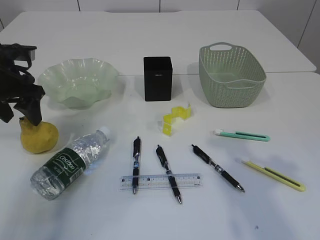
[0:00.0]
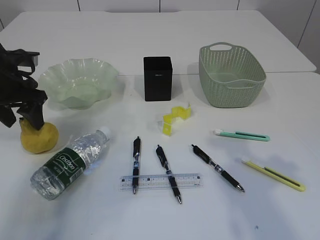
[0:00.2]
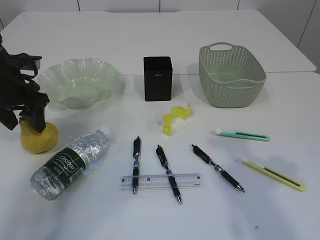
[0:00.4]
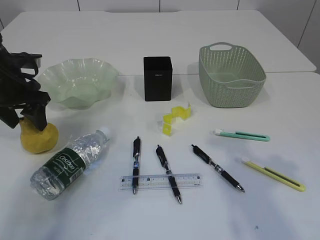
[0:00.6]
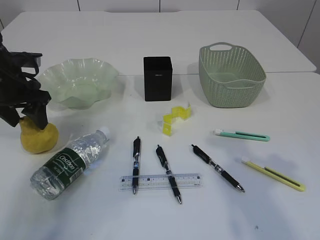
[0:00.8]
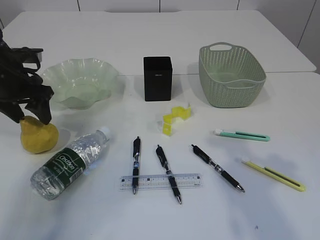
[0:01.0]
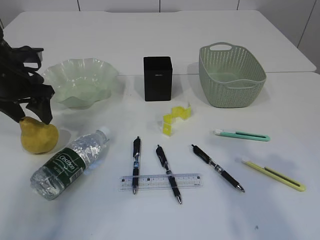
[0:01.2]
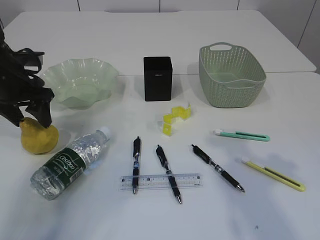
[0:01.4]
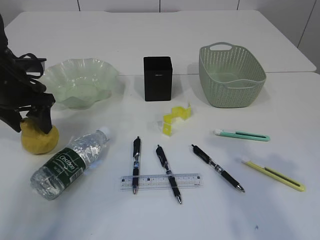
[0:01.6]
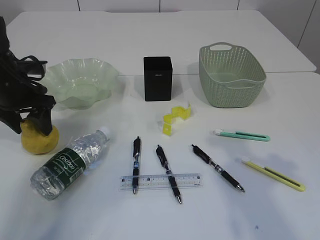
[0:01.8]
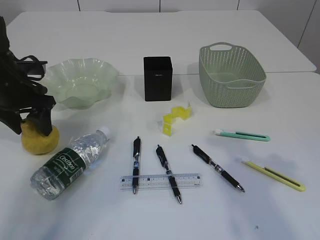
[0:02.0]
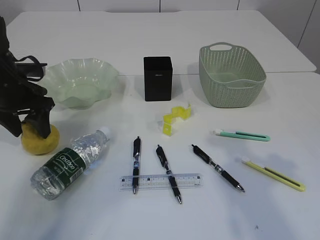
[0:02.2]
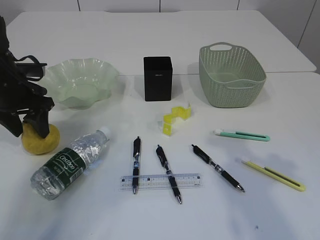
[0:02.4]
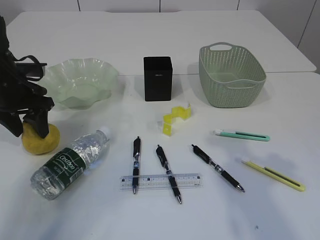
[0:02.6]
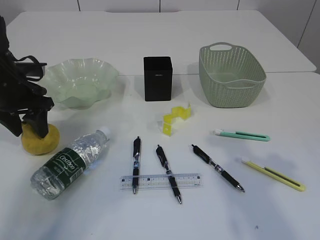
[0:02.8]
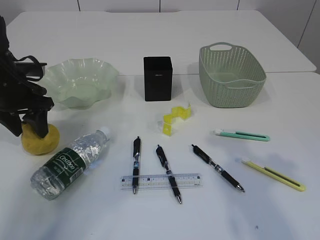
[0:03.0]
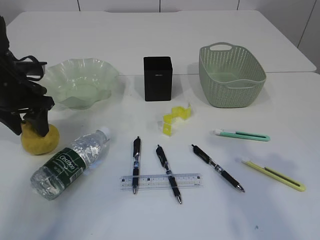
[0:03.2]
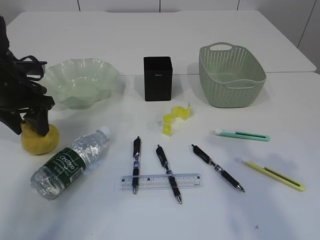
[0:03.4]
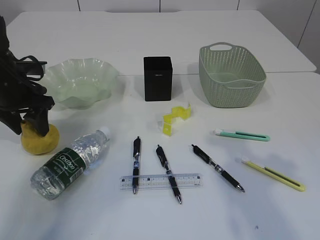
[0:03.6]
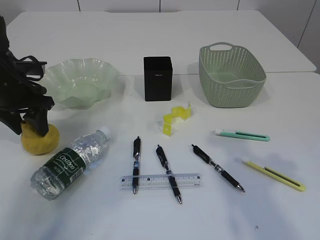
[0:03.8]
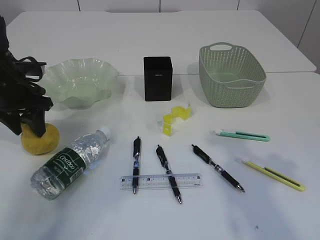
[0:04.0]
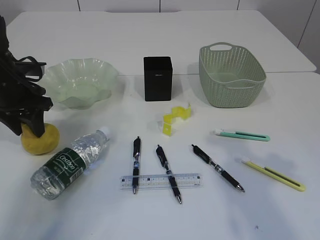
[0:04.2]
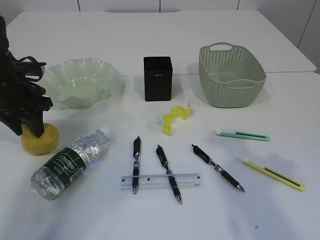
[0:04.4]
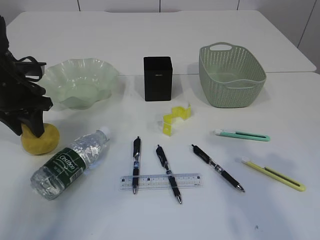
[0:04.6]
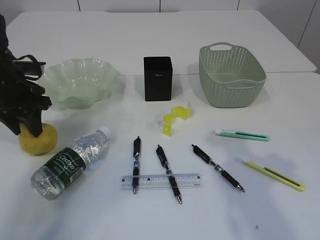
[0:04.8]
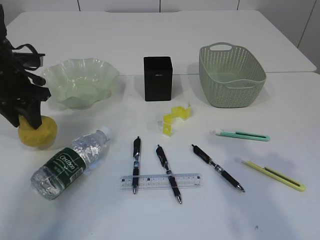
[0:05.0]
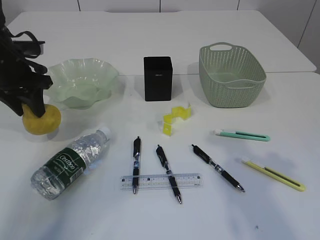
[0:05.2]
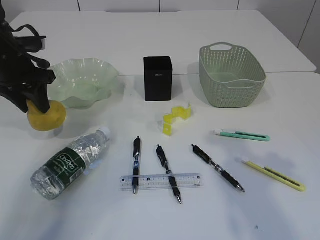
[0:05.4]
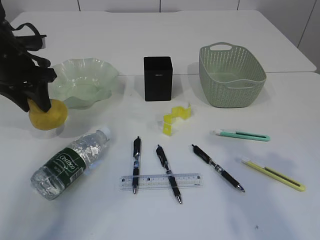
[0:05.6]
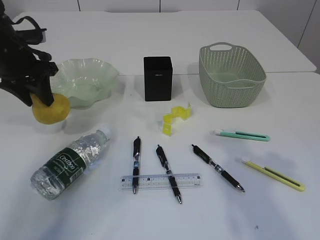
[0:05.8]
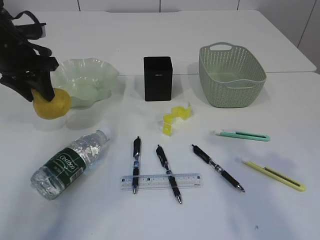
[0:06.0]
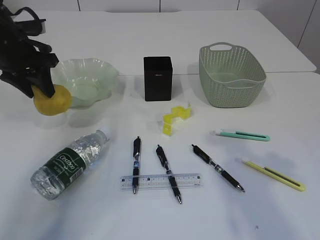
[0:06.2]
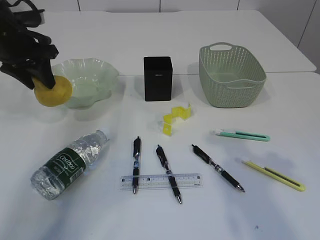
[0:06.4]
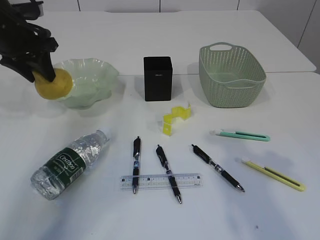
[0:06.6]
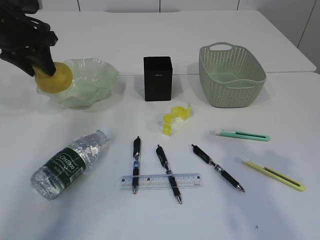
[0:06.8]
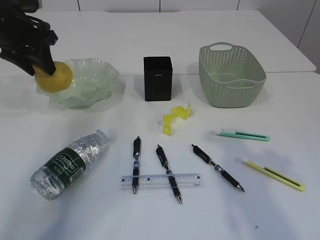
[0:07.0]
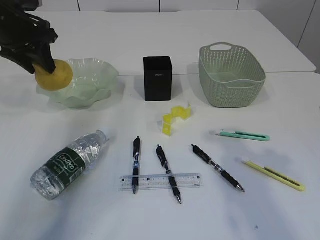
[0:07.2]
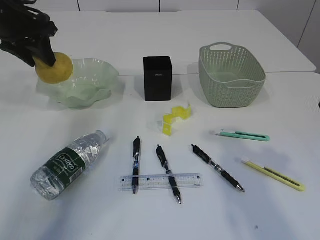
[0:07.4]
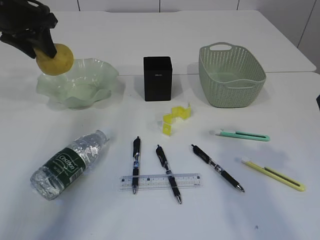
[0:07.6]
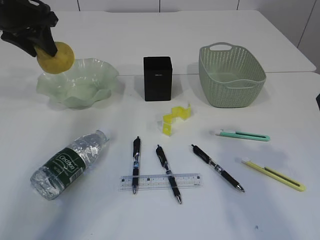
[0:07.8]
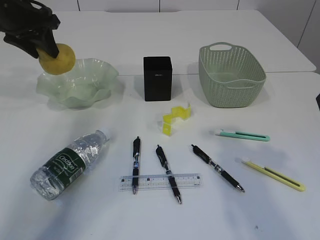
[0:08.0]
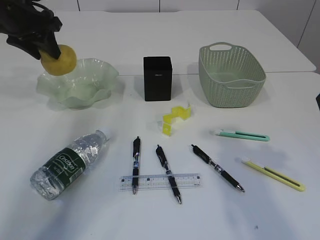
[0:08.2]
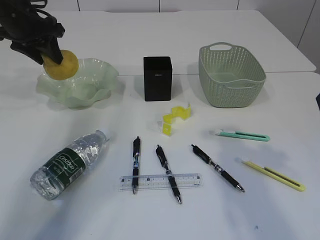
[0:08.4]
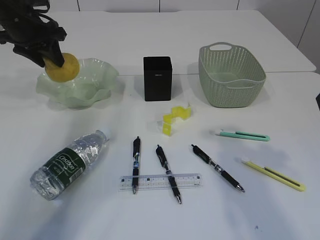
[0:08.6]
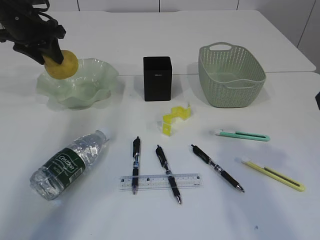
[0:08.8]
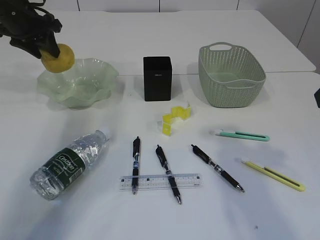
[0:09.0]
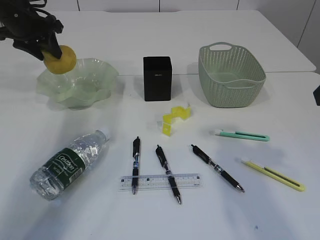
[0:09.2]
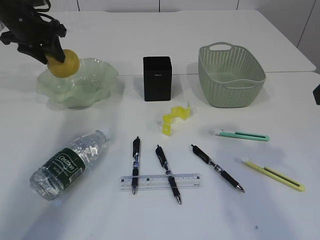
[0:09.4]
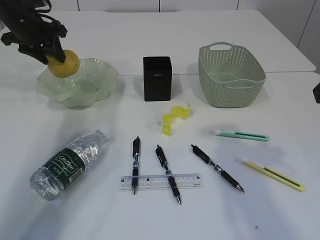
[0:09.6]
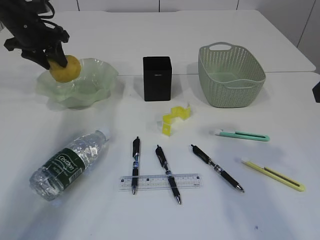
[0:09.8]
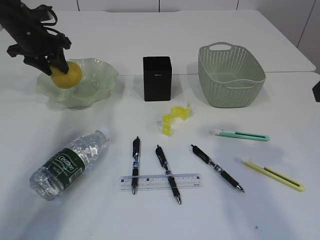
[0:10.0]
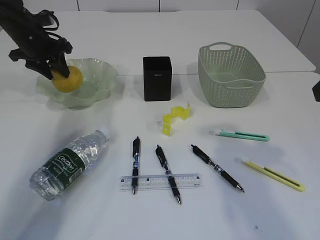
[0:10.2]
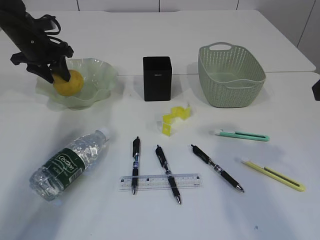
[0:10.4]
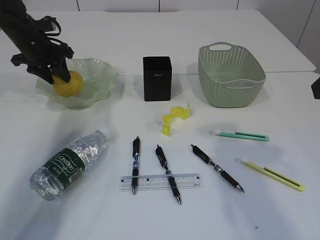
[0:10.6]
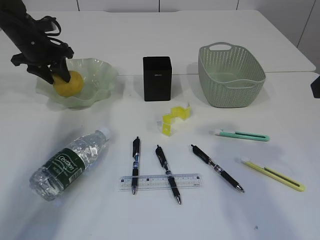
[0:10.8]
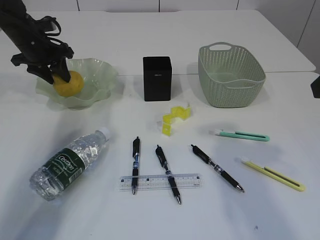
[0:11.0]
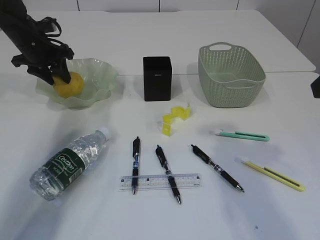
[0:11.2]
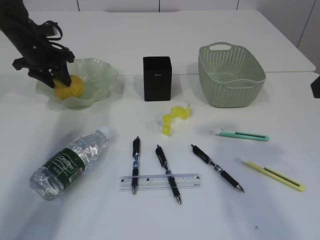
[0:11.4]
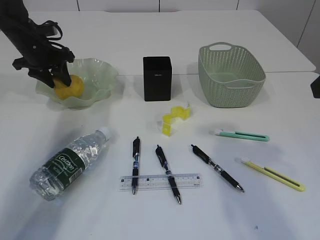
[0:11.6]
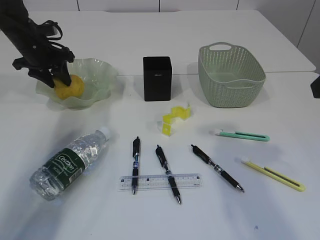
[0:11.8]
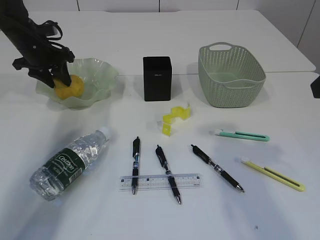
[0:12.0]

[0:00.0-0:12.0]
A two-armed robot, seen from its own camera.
0:00.0 to 0:01.6: There are only small adjustments of the grippers.
0:01.6 to 0:03.0: Both grippers stay about where they are.
0:03.0 to 0:04.4: The left gripper closes.
0:04.4 to 0:06.0: The left gripper moves upward, about 5 cm.
0:06.0 to 0:07.6: The left gripper travels upward by about 5 cm.
0:07.6 to 0:09.0: The left gripper moves about 5 cm.
0:09.0 to 0:10.4: The left gripper goes roughly 5 cm downward.
0:10.4 to 0:12.0: Both grippers stay about where they are.

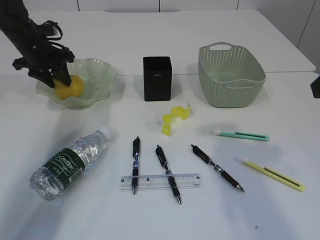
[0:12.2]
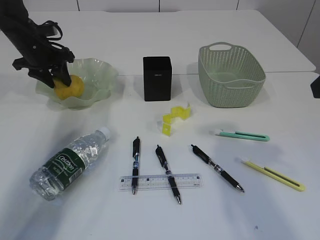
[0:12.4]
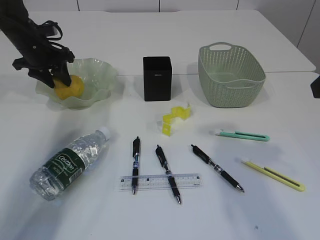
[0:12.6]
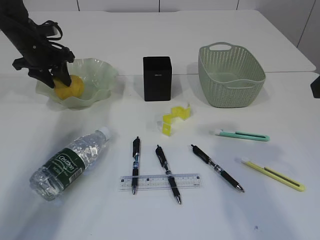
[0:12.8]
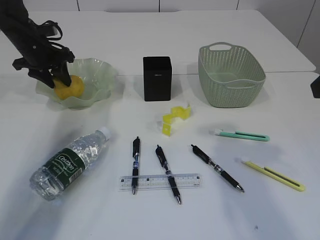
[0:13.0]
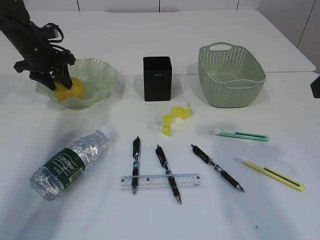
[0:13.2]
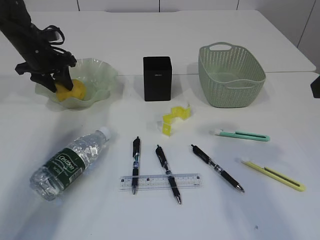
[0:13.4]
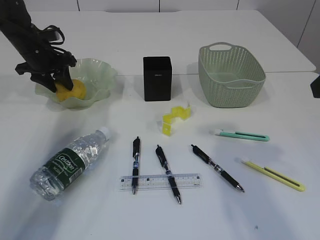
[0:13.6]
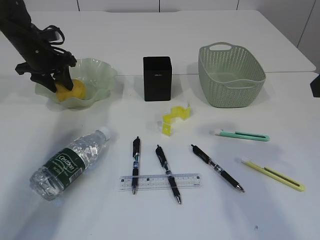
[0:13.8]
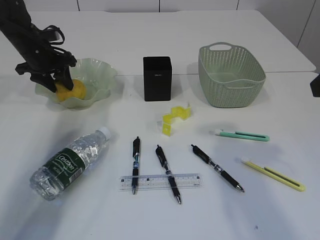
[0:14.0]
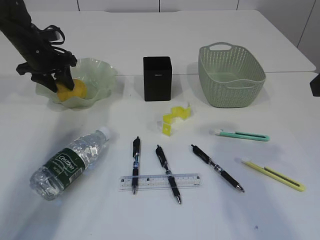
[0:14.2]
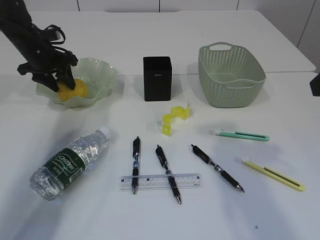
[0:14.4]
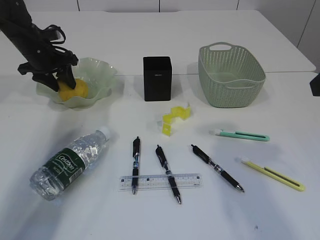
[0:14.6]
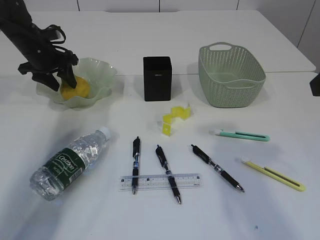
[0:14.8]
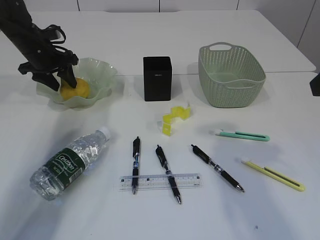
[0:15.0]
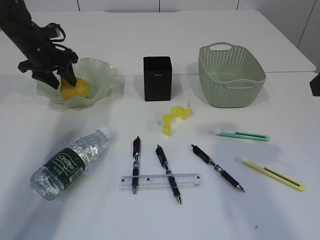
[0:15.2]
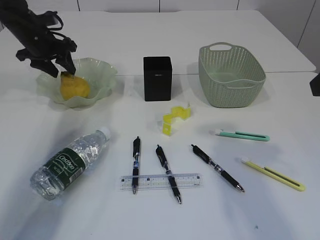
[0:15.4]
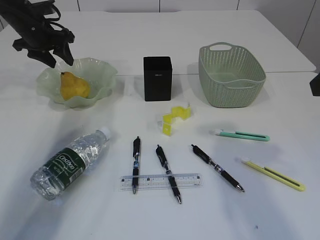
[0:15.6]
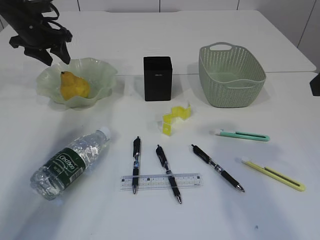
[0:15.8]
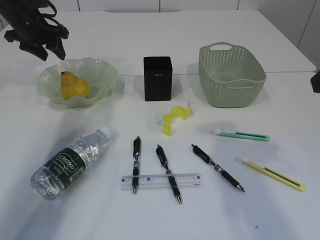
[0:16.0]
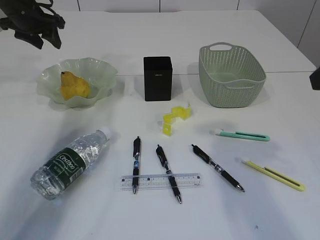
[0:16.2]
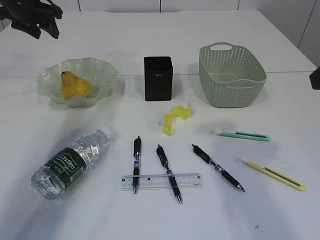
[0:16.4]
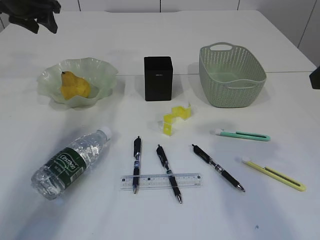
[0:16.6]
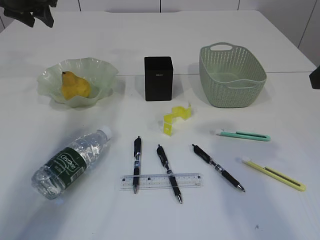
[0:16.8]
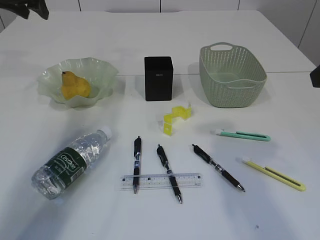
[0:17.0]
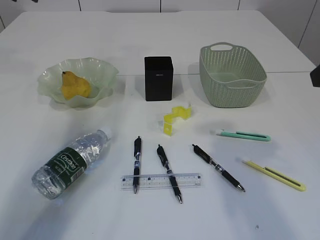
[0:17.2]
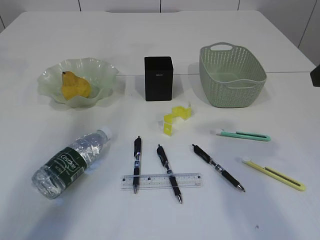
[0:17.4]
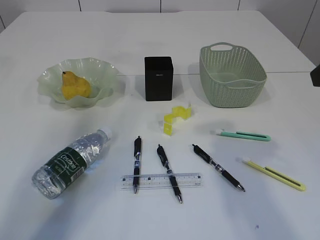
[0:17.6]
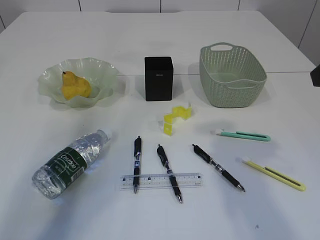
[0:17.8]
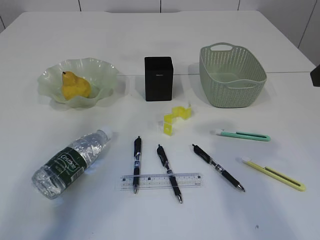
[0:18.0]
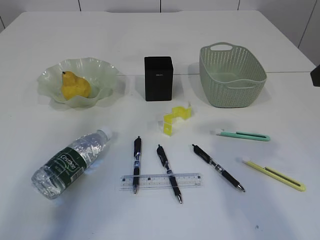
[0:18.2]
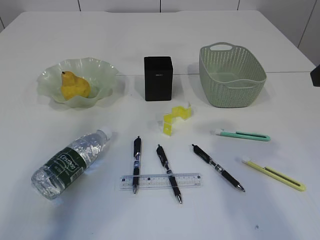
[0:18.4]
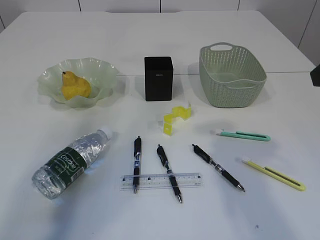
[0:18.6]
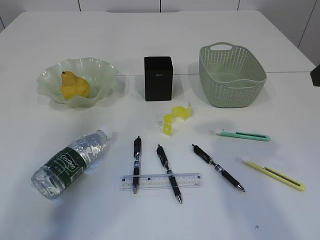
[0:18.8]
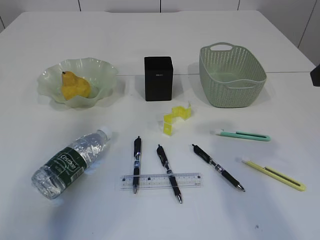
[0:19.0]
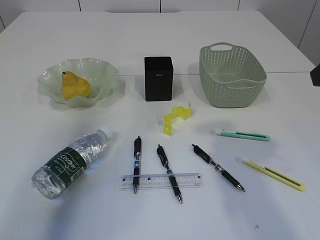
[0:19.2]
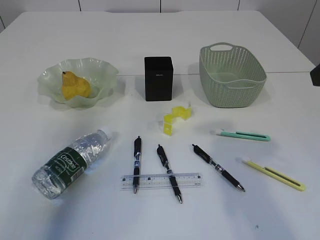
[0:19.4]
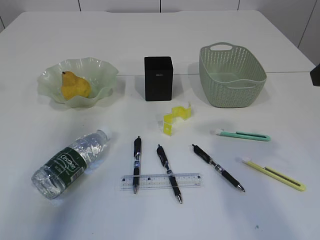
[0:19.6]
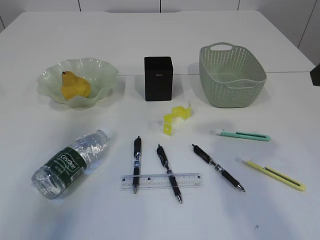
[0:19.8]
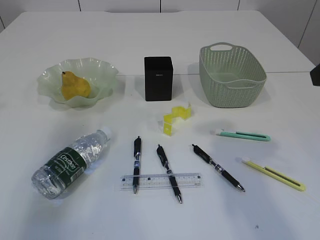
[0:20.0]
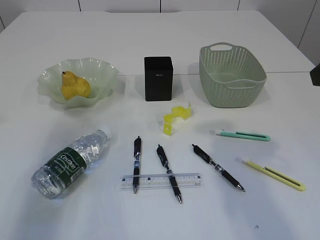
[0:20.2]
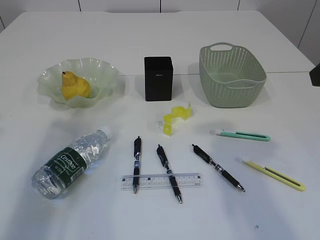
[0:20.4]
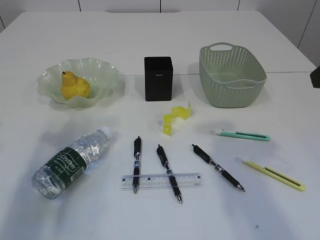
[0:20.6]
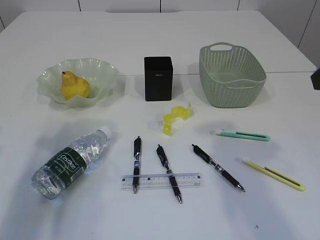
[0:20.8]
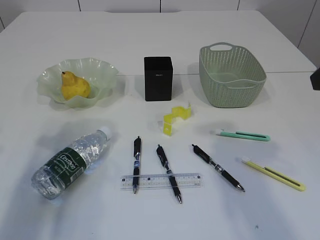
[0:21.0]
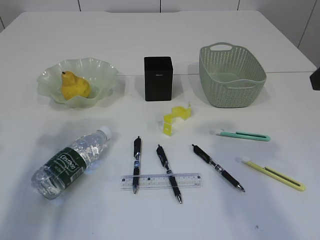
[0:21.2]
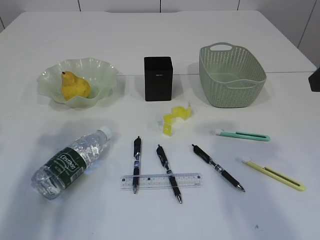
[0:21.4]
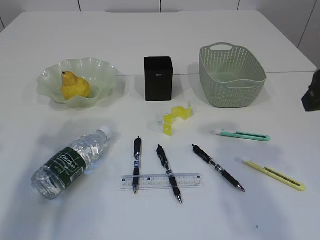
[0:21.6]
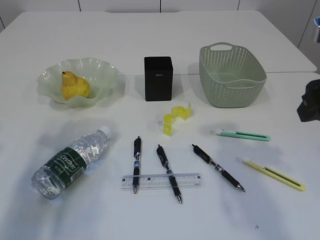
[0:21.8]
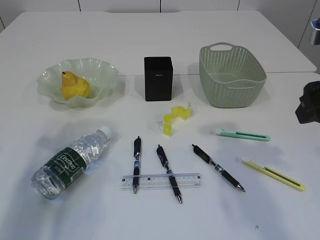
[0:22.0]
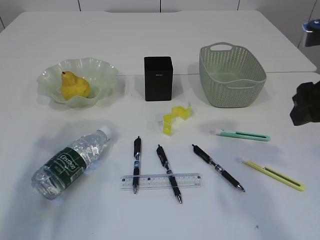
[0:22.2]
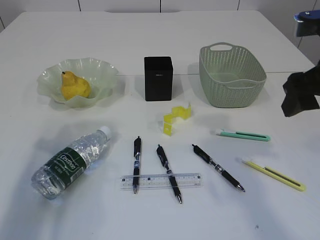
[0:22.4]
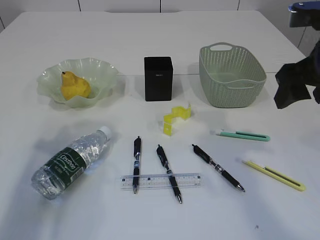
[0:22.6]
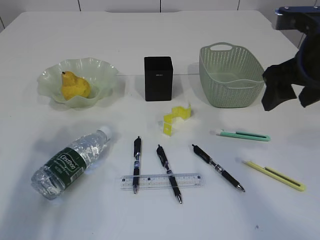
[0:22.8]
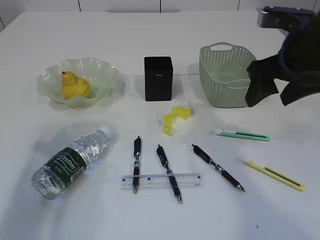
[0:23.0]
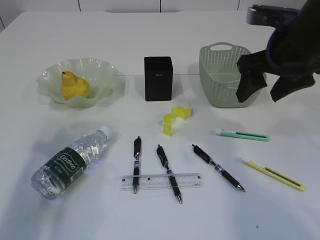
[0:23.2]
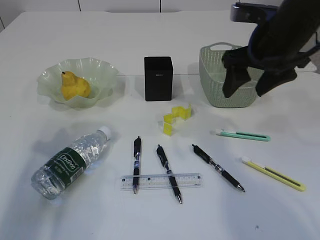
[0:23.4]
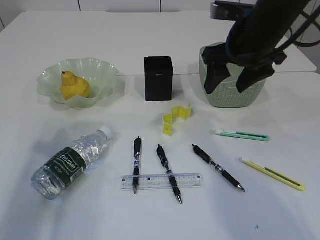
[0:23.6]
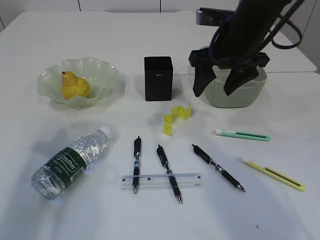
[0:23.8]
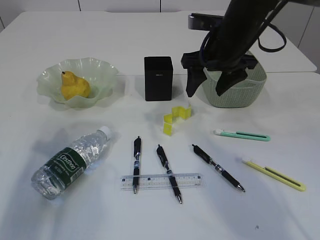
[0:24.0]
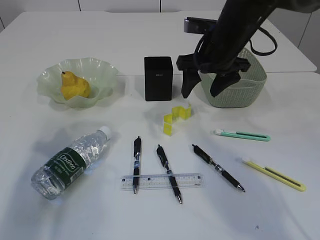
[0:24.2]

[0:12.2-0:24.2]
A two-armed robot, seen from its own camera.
Step, 0:12.2 to 0:16.2: Place the pear in the plate.
0:12.2 to 0:15.2: Both grippers stay put.
0:15.2 to 0:16.6: The left gripper travels upward by some 10 cm.
0:16.6 to 0:18.2: The left gripper is displaced upward and backward by about 30 cm.
0:18.2 to 0:19.8: The left gripper is displaced downward by approximately 15 cm.
0:19.8 to 0:21.2: The left gripper moves downward and backward, approximately 20 cm.
0:21.2 to 0:22.6: The right gripper is displaced forward by about 5 cm.
0:22.6 to 0:24.2: The right gripper goes approximately 20 cm forward and to the left.
